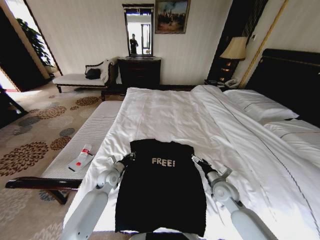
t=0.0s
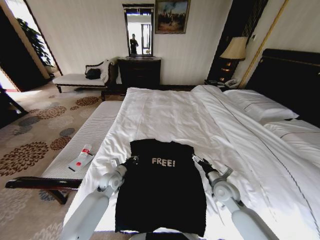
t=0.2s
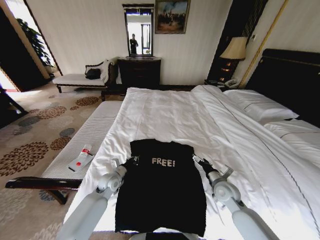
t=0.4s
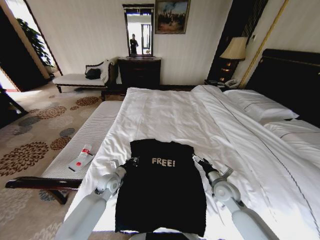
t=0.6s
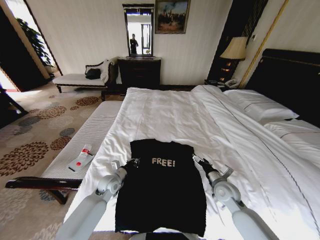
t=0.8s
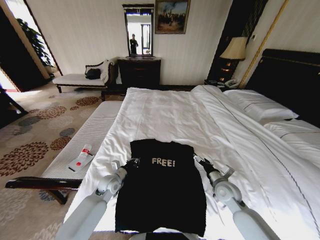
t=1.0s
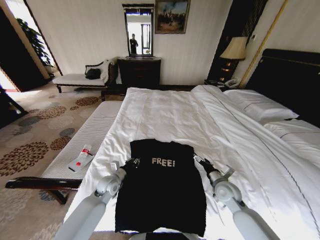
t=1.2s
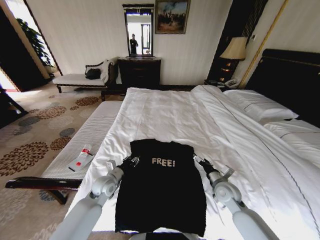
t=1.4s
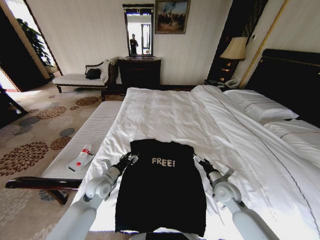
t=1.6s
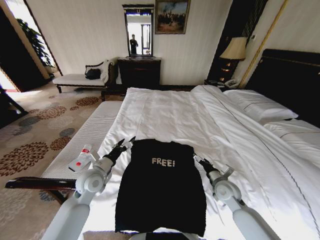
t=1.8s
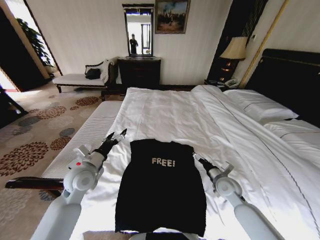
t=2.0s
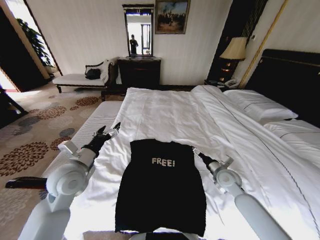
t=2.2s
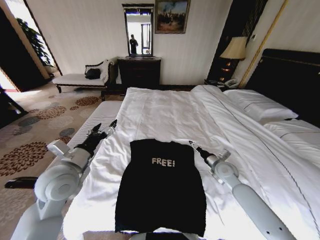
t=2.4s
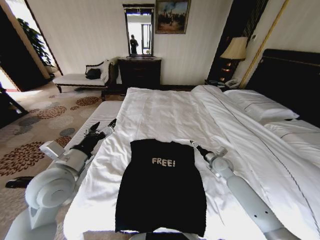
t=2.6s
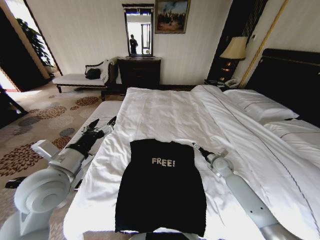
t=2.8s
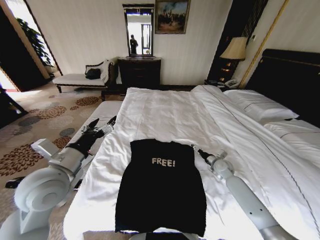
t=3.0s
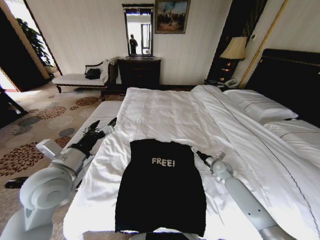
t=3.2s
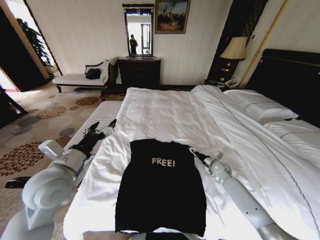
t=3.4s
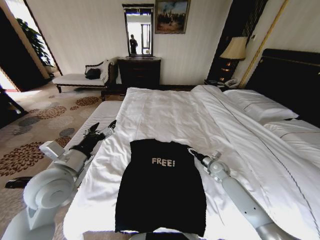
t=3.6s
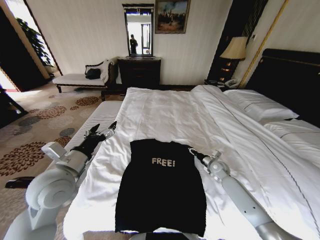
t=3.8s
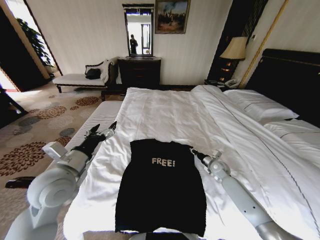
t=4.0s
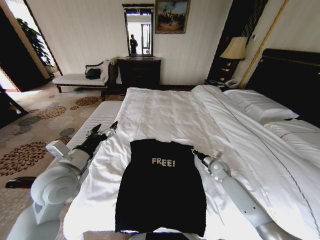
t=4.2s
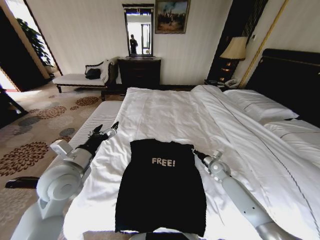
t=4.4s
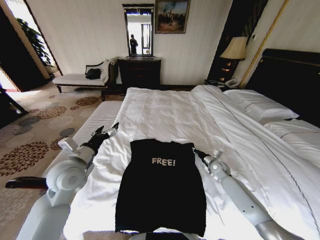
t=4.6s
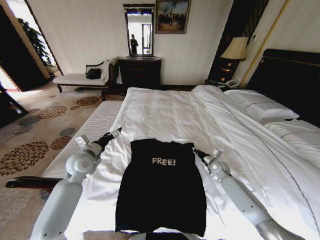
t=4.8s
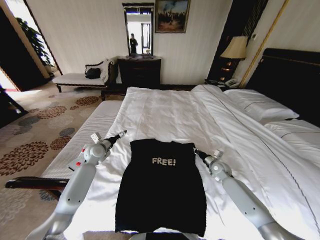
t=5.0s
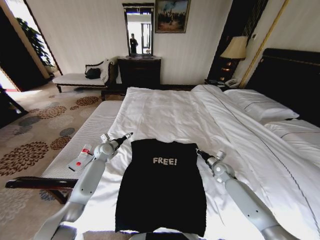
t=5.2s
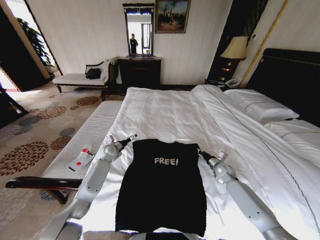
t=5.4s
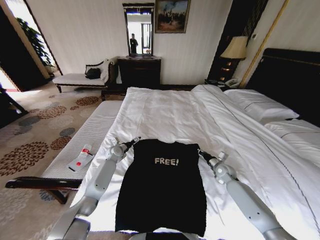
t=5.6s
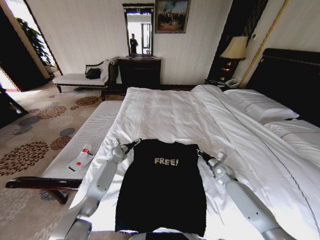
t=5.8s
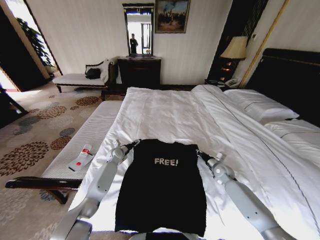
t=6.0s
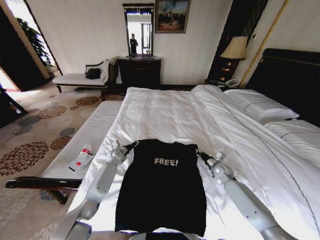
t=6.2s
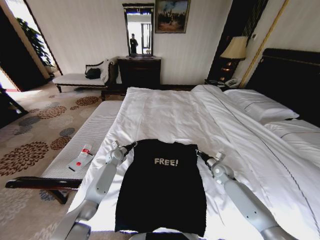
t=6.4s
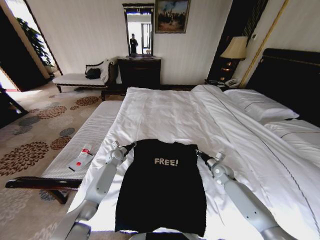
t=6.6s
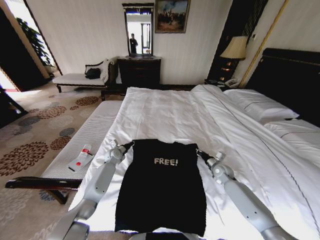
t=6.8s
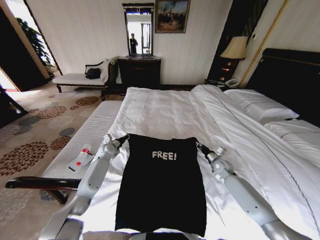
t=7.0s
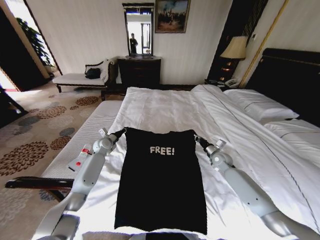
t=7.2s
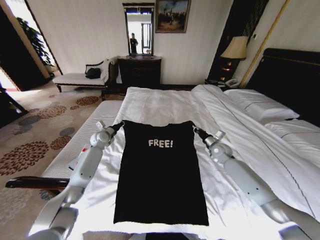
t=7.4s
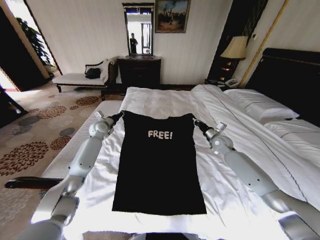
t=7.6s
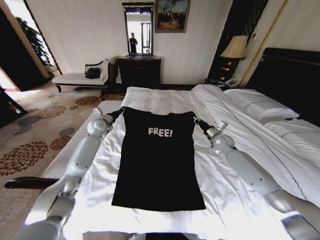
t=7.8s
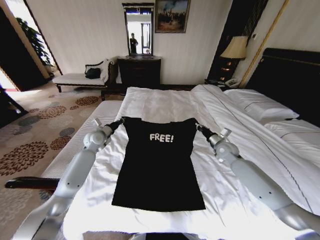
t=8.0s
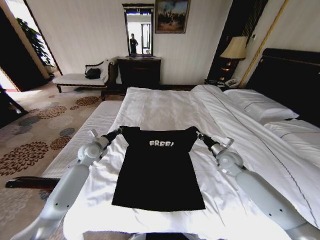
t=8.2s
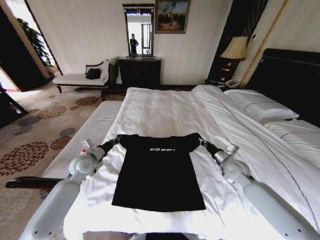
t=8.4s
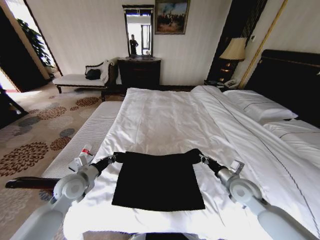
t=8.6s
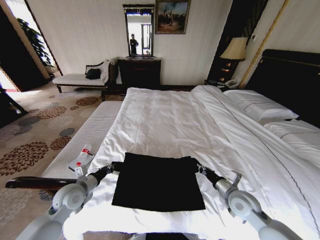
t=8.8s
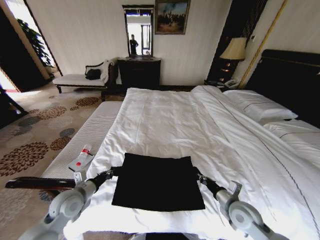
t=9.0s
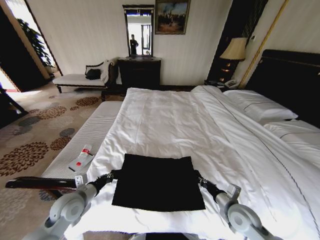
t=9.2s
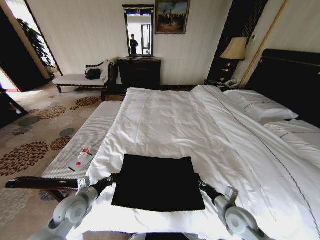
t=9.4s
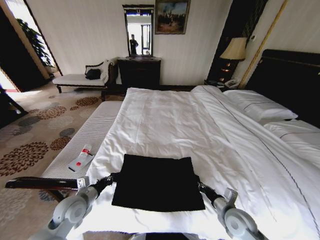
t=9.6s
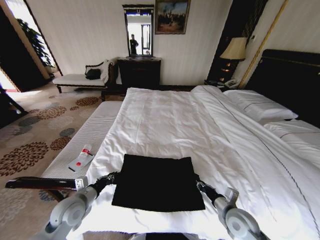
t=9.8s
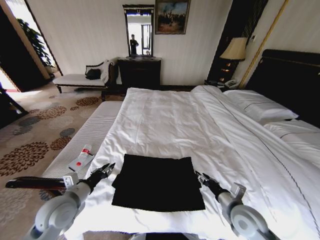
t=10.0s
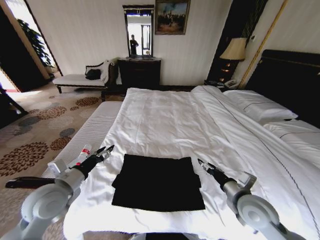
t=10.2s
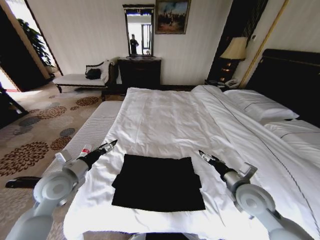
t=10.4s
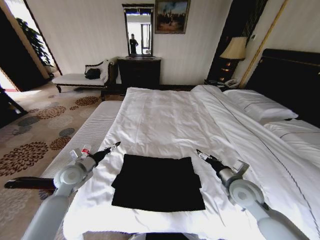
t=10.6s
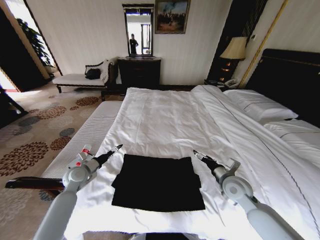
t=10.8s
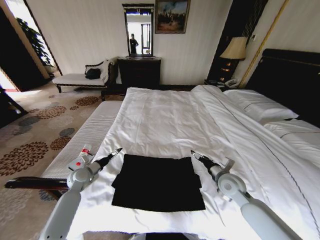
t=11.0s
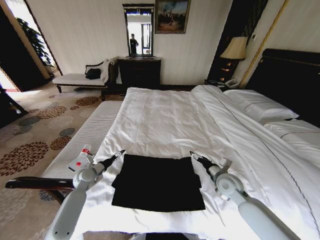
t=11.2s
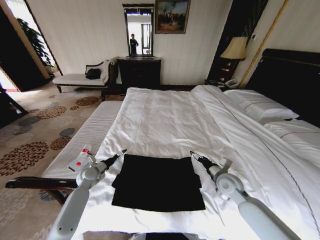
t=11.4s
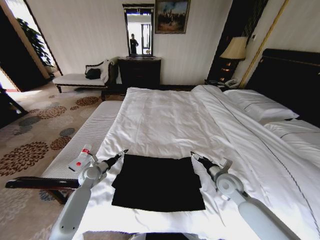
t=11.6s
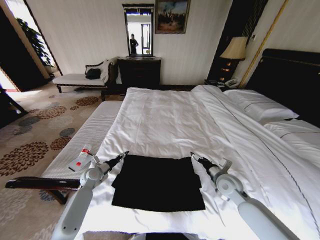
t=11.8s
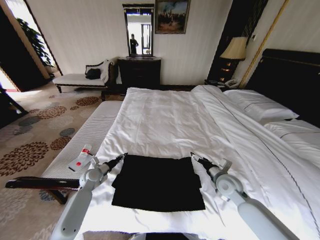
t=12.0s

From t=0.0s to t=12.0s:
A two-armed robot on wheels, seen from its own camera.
Task of the whole recording: Fold the clothes on the bed.
From t=0.0s to t=1.6s: The left gripper is displaced backward and upward by some 10 cm, and opens up.
From t=1.6s to t=3.0s: The right gripper goes roughly 15 cm forward and to the right; the left gripper moves upward, about 20 cm.
From t=3.0s to t=4.4s: The right gripper closes.
From t=4.4s to t=6.0s: The left gripper travels forward and downward by some 35 cm.
From t=6.0s to t=7.6s: The left gripper travels upward and to the left by about 20 cm, and closes up; the right gripper goes approximately 15 cm upward and forward.
From t=7.6s to t=9.0s: The grippers both shift backward by roughly 30 cm.
From t=9.0s to t=10.4s: The grippers both shift upward by about 10 cm. The right gripper opens its fingers. Meanwhile the left gripper opens its fingers.
From t=10.4s to t=12.0s: The right gripper travels downward and forward by some 10 cm, while the left gripper shifts approximately 20 cm downward and forward, and closes its fingers.

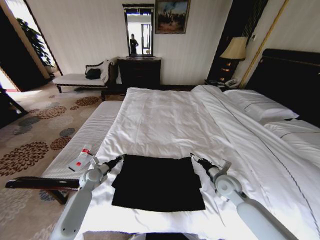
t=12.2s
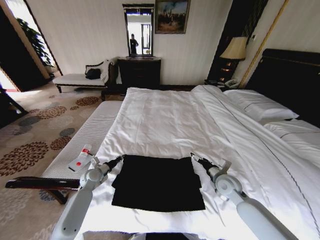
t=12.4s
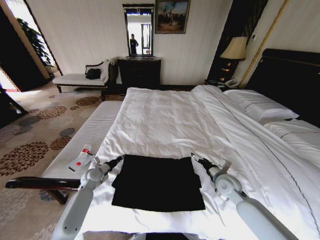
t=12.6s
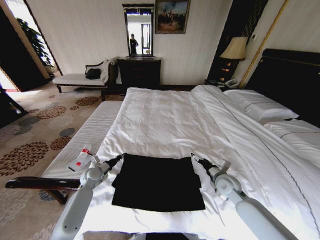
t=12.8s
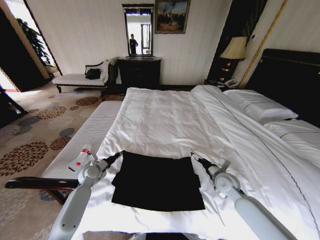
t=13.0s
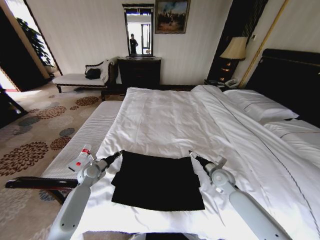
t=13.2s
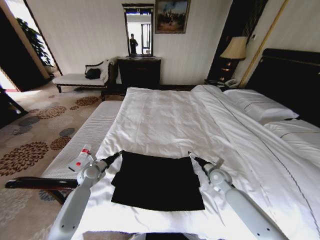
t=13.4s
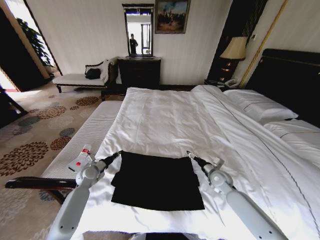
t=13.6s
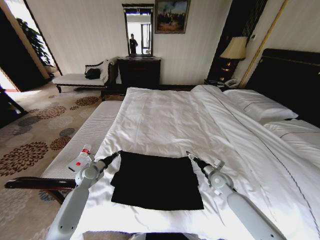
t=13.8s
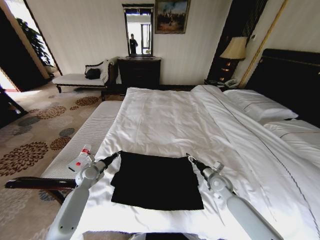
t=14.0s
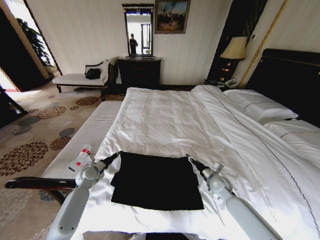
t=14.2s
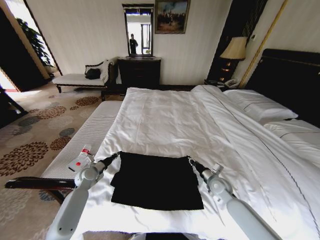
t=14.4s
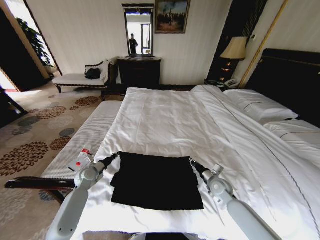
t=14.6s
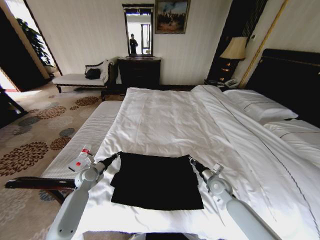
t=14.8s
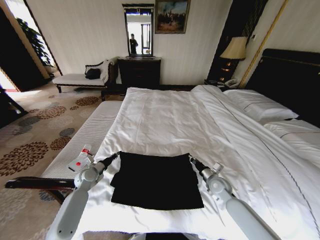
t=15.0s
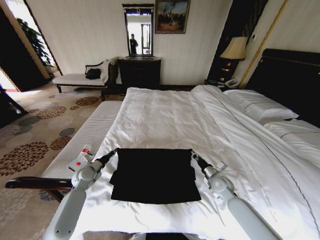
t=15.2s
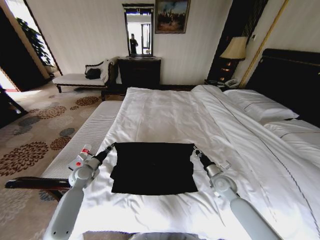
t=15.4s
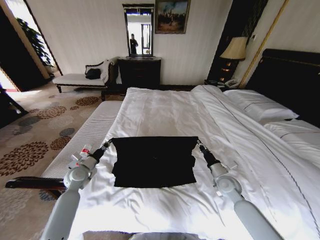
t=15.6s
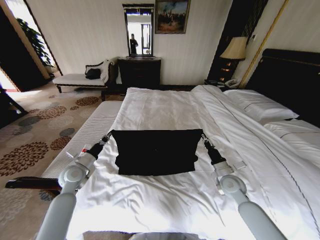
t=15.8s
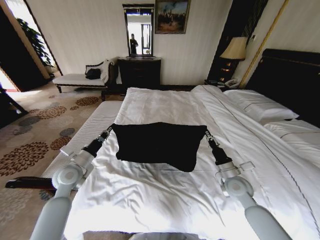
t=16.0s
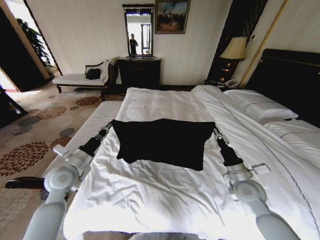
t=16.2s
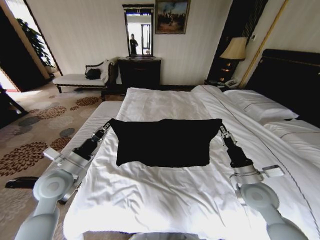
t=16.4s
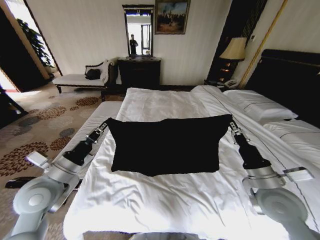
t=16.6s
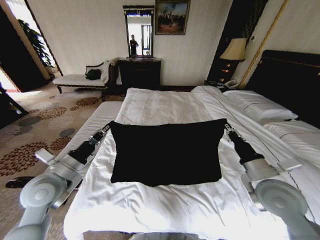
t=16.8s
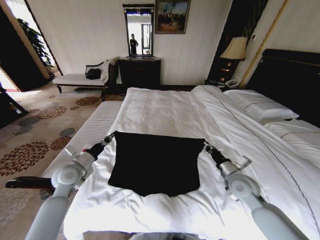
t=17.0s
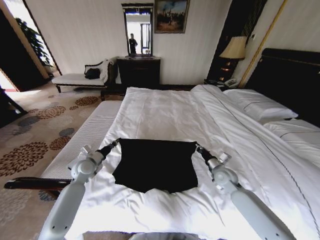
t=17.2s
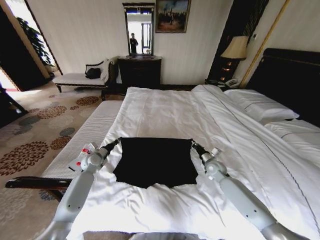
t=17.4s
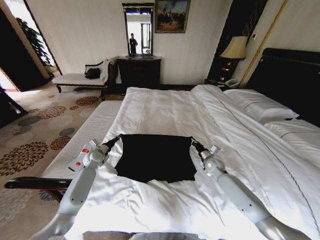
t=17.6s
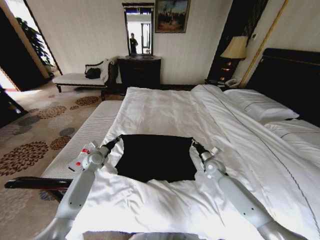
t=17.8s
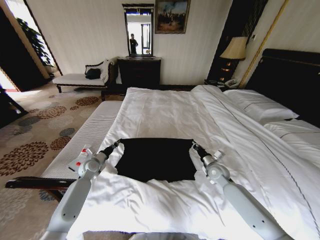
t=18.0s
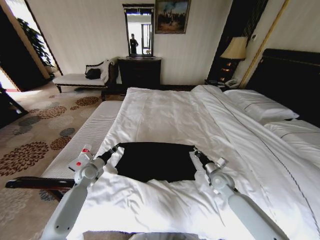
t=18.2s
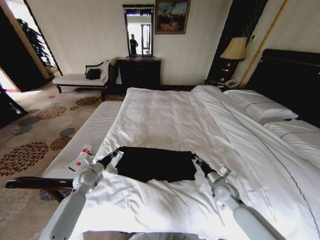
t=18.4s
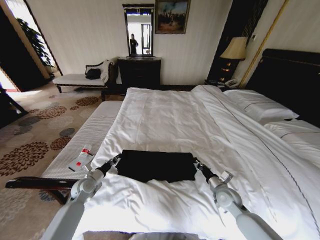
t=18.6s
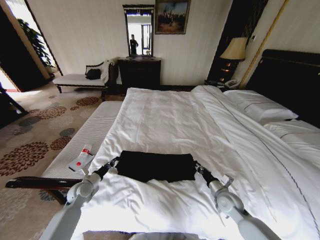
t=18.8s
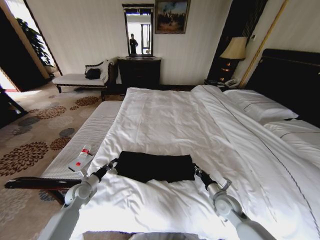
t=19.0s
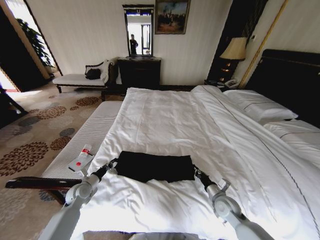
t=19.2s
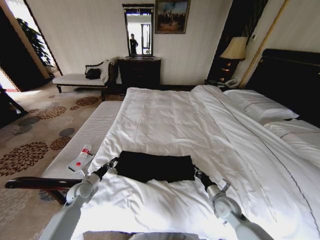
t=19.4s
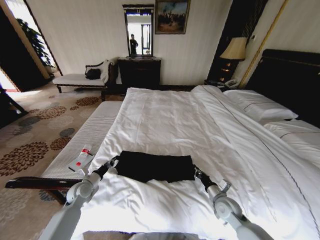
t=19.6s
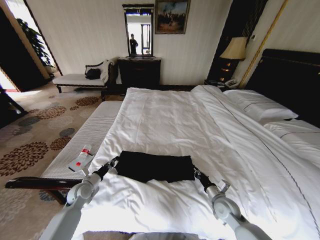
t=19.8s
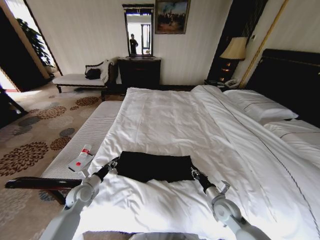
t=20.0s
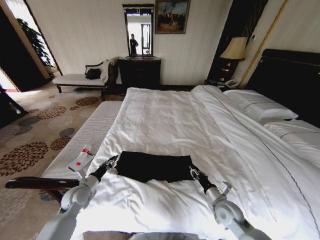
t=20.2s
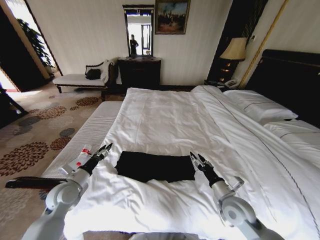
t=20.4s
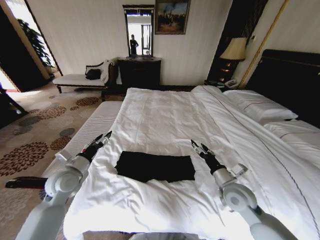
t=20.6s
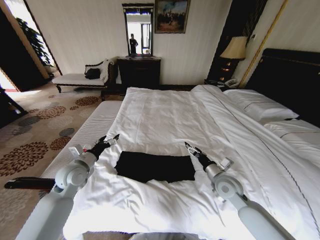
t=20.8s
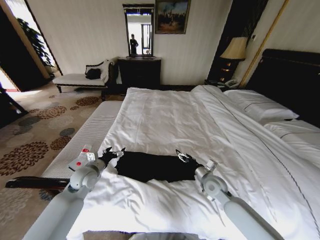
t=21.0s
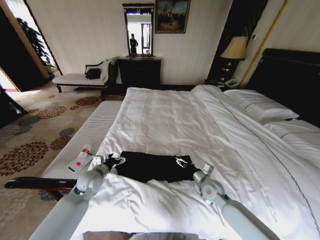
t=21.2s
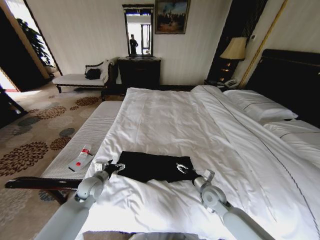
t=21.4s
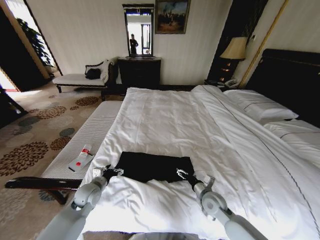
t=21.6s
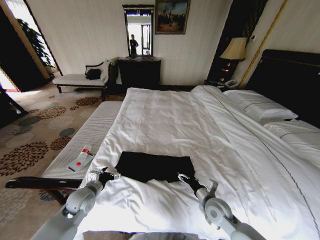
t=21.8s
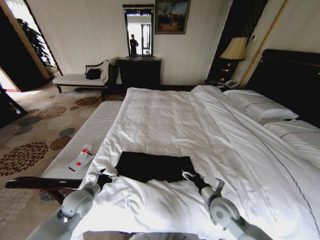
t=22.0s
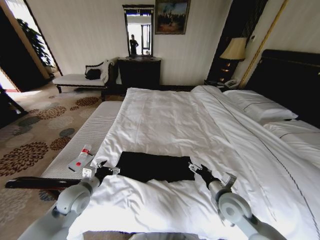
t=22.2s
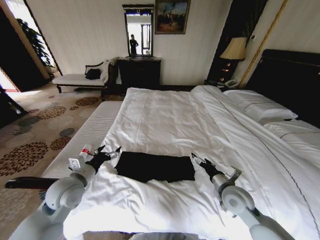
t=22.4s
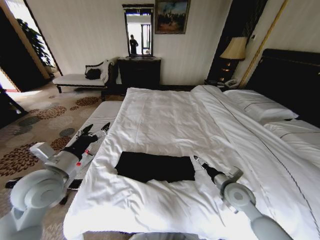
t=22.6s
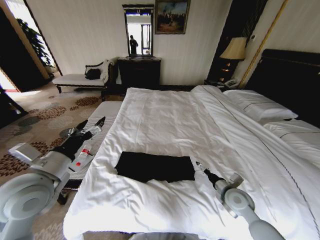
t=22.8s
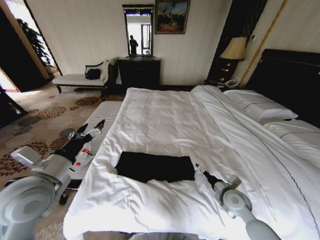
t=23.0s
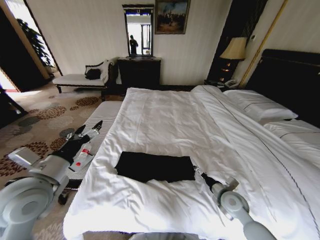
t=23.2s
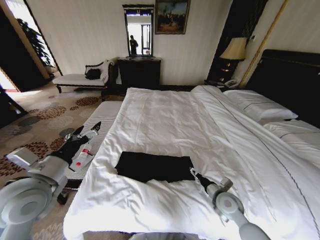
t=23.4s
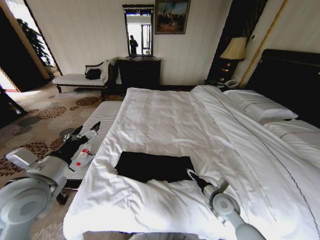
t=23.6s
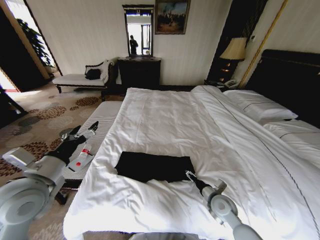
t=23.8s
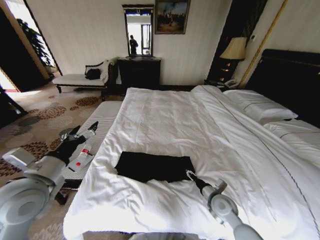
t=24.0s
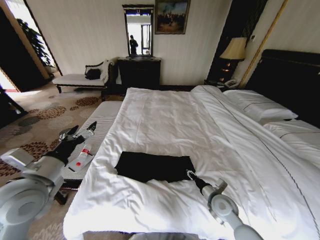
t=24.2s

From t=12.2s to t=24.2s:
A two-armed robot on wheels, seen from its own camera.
Task of the whole recording: Fold the clothes on the bed.
From t=12.2s to t=13.8s: The right gripper shifts some 5 cm downward.
From t=13.8s to t=15.2s: The right gripper closes.
From t=15.2s to t=16.6s: The two grippers go some 25 cm upward and backward.
From t=16.6s to t=18.2s: The two grippers go approximately 25 cm downward and forward.
From t=18.2s to t=19.8s: The two grippers go about 10 cm backward.
From t=19.8s to t=21.2s: The left gripper travels upward and to the right by about 10 cm, and opens up. Meanwhile the right gripper travels forward by some 5 cm, reaches about 15 cm upward, then returns, and opens.
From t=21.2s to t=22.6s: The right gripper moves upward and to the right, about 10 cm. Meanwhile the left gripper goes roughly 20 cm upward and backward.
From t=22.6s to t=24.2s: The right gripper is displaced downward by some 5 cm, and closes its fingers.
